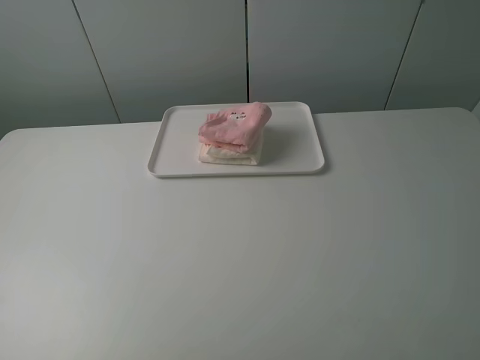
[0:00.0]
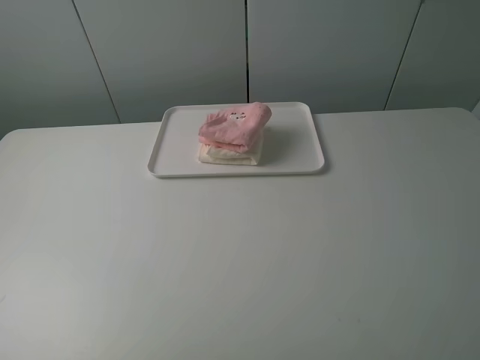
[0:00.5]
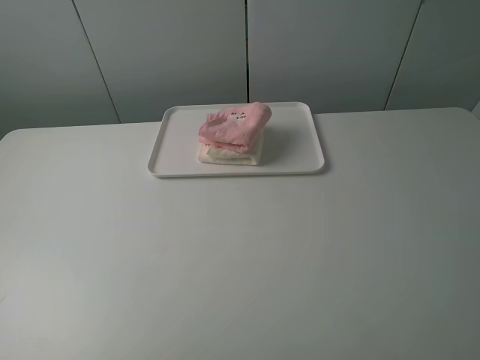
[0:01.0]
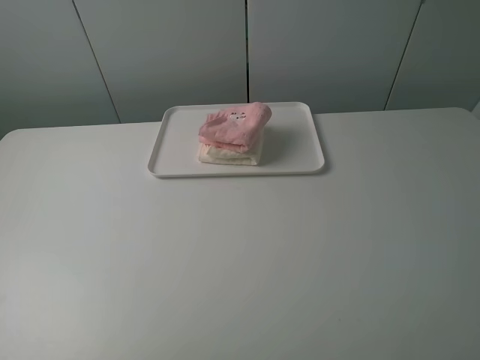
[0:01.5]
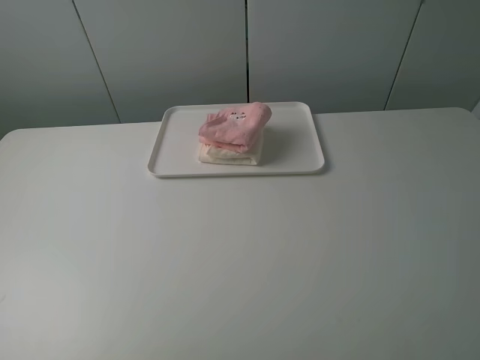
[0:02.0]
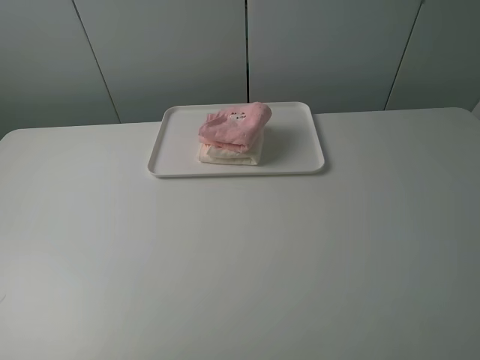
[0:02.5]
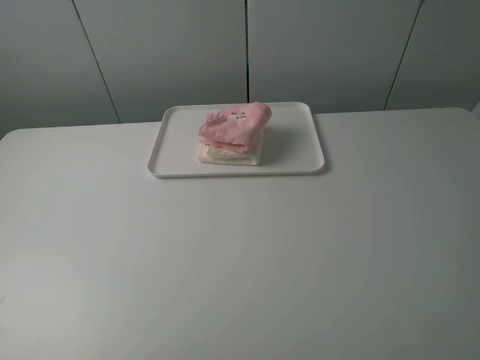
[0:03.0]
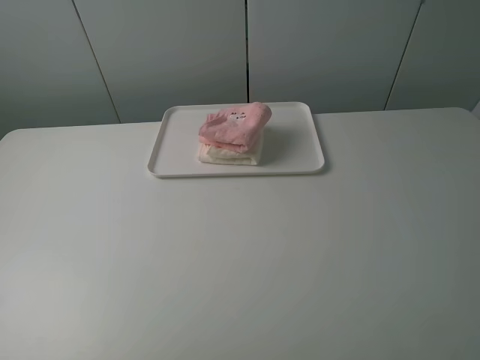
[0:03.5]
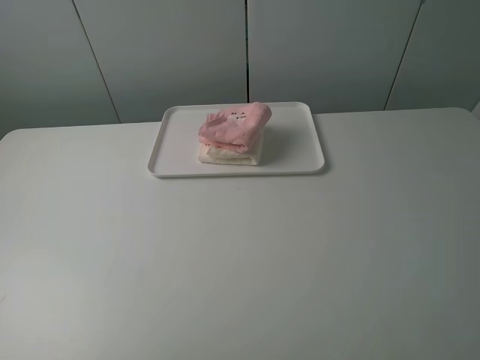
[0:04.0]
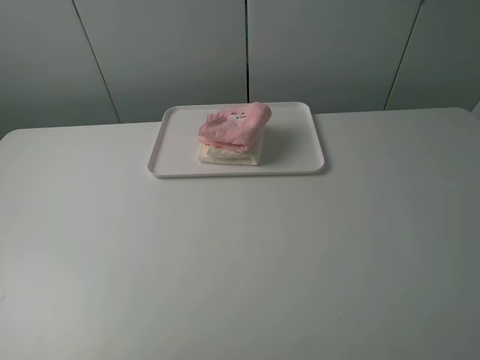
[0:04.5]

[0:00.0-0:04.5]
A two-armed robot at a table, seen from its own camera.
Task of the whole recording: fold one of the towels by two grippers and place it on the tray,then fold another towel by two grippers and place it on the folded towel.
0:02.0 to 0:04.5: Both grippers stay about where they are.
